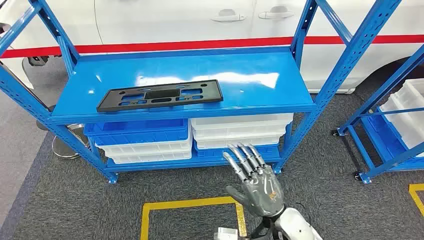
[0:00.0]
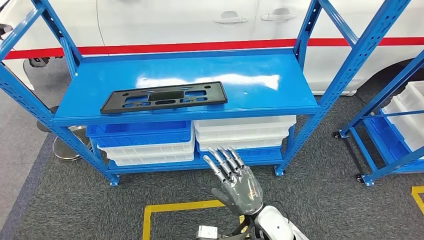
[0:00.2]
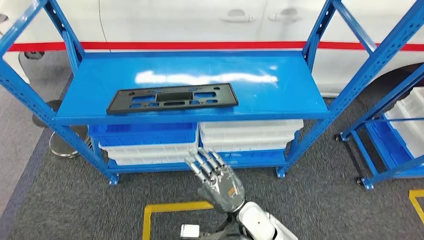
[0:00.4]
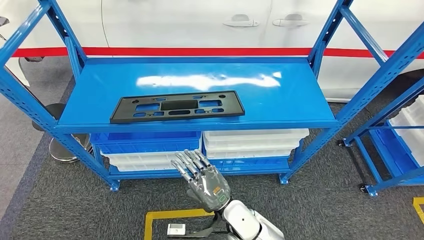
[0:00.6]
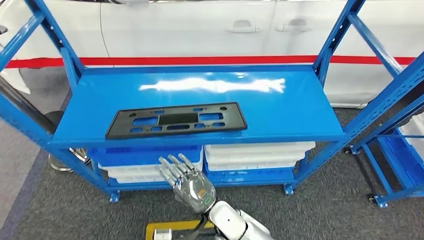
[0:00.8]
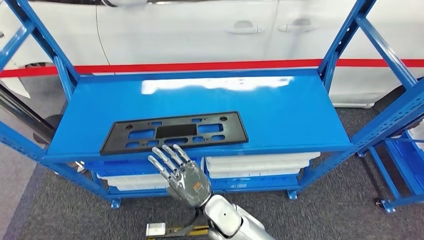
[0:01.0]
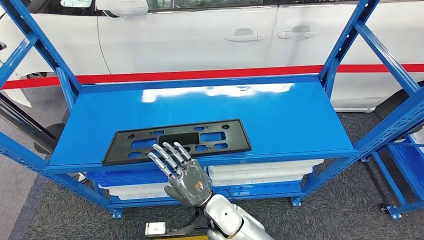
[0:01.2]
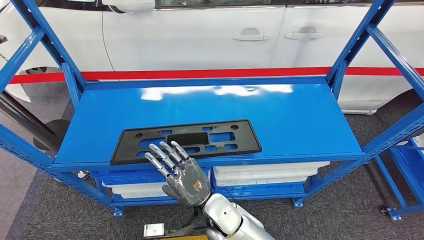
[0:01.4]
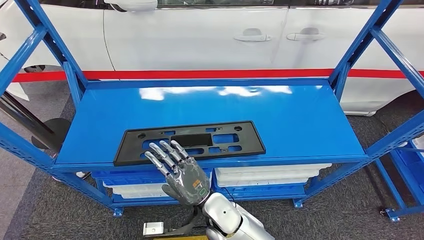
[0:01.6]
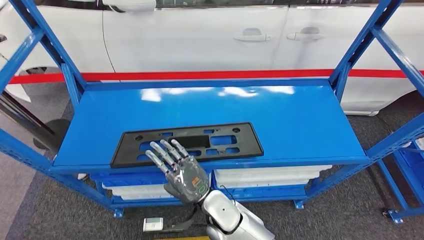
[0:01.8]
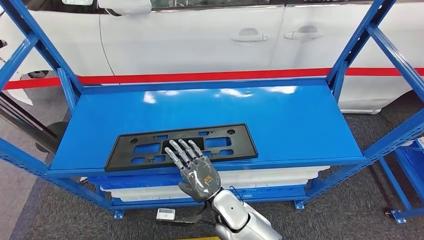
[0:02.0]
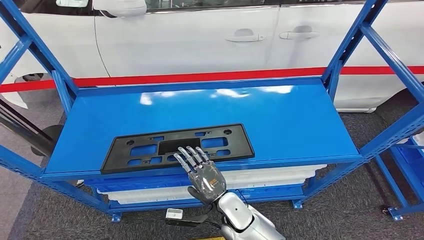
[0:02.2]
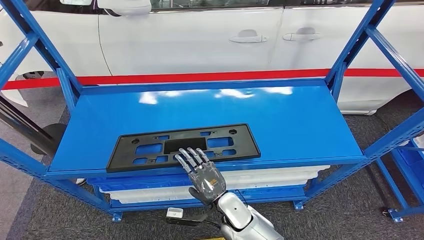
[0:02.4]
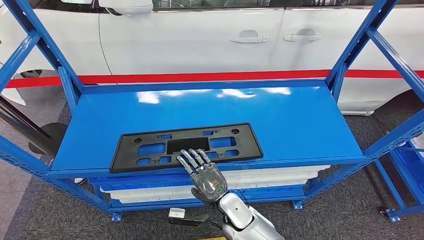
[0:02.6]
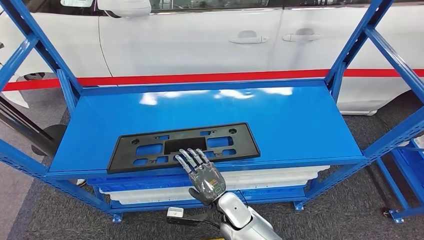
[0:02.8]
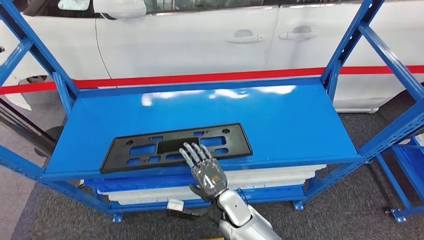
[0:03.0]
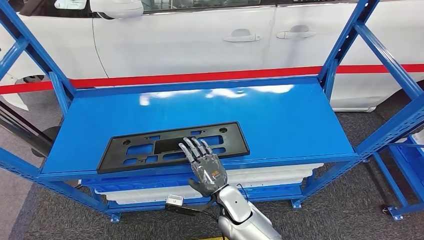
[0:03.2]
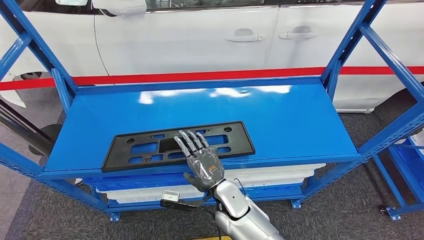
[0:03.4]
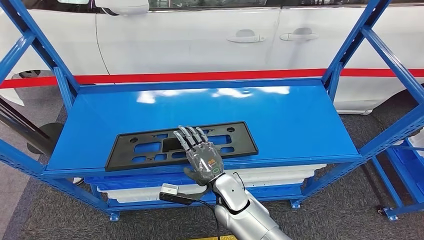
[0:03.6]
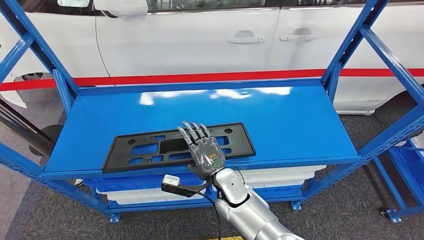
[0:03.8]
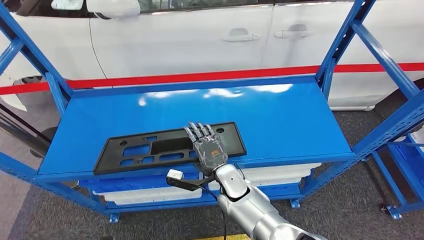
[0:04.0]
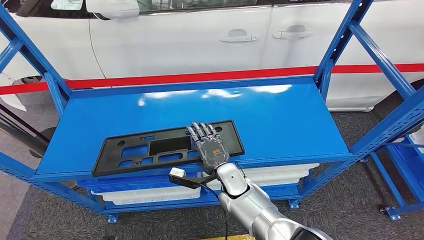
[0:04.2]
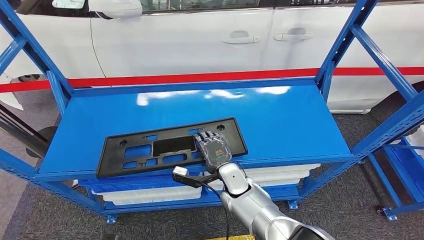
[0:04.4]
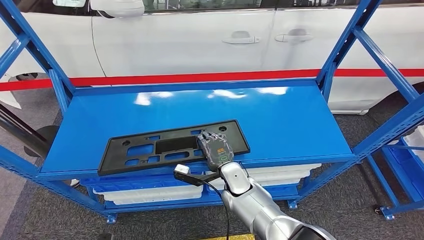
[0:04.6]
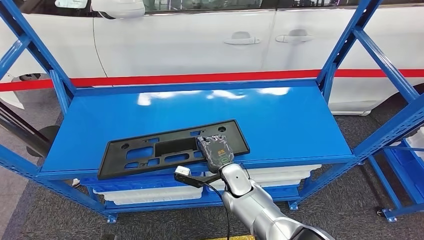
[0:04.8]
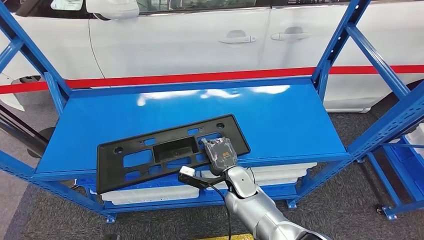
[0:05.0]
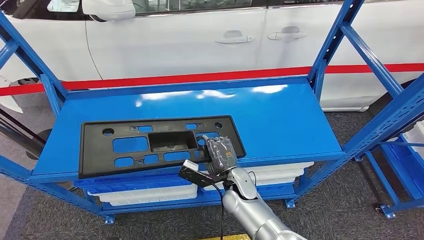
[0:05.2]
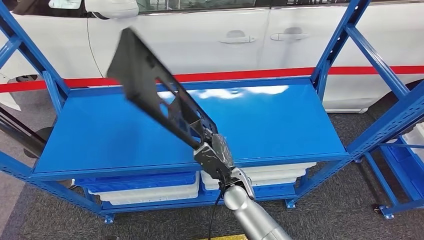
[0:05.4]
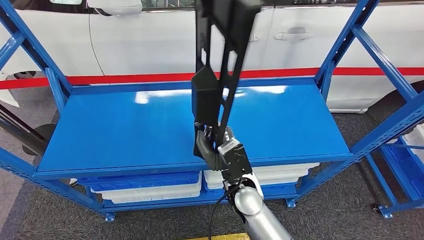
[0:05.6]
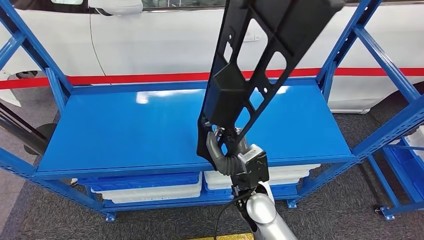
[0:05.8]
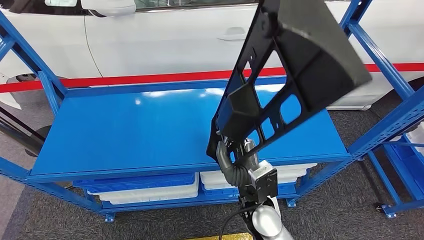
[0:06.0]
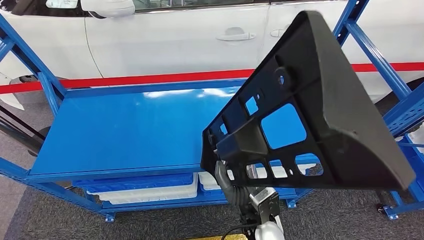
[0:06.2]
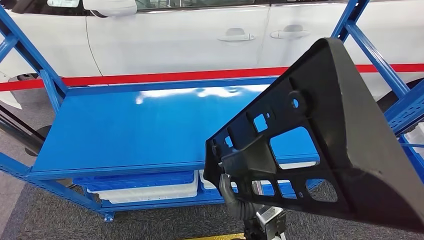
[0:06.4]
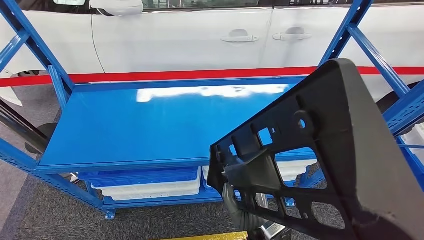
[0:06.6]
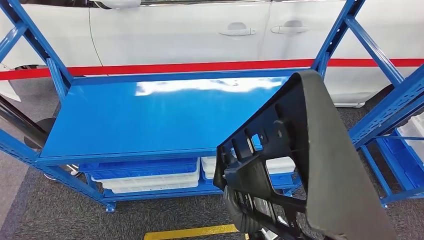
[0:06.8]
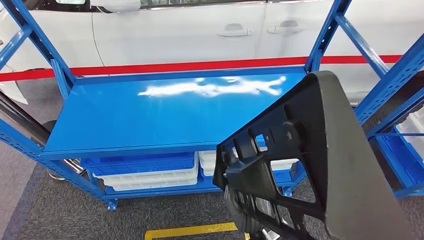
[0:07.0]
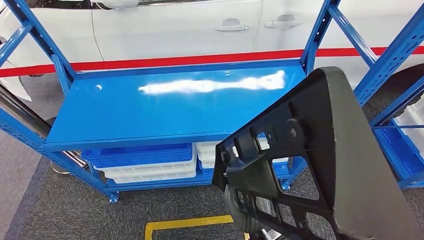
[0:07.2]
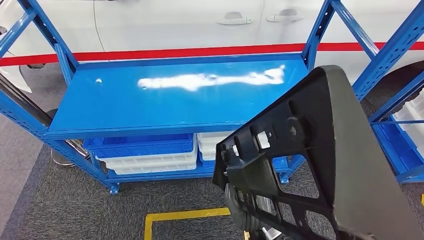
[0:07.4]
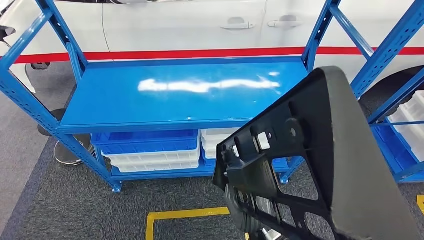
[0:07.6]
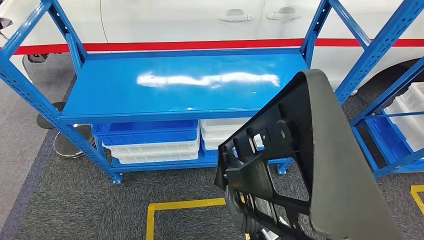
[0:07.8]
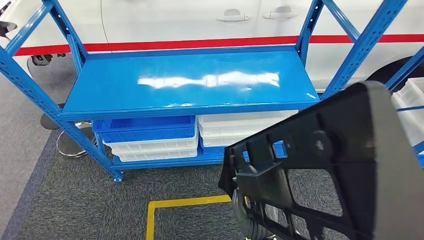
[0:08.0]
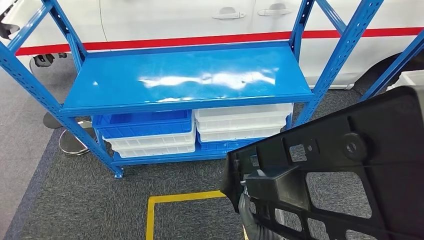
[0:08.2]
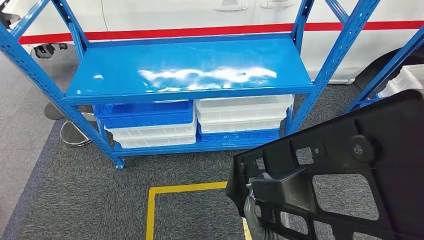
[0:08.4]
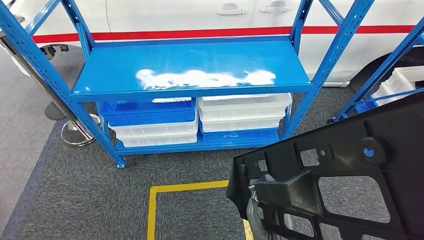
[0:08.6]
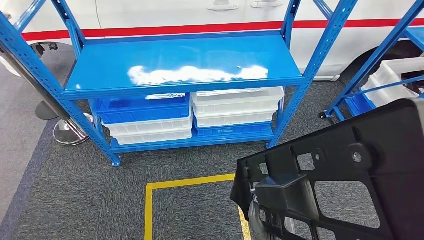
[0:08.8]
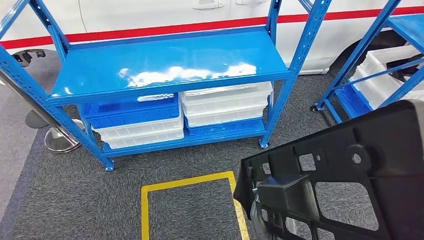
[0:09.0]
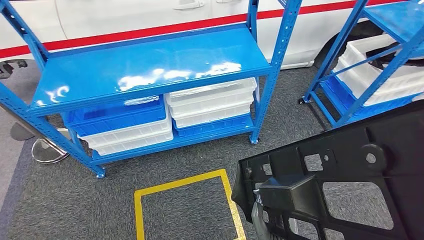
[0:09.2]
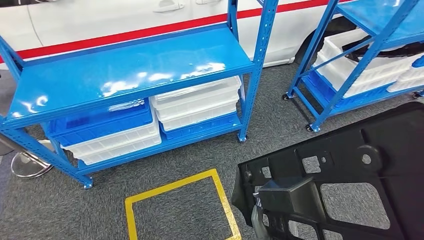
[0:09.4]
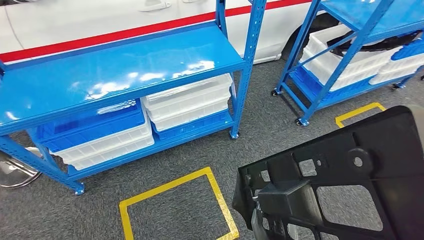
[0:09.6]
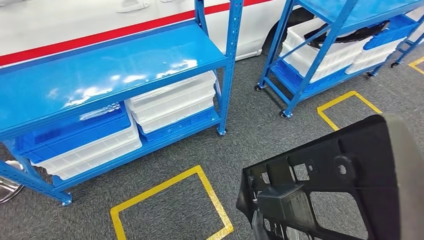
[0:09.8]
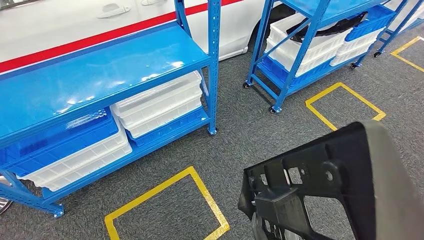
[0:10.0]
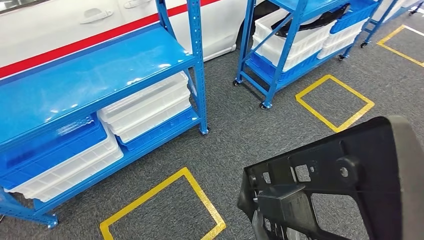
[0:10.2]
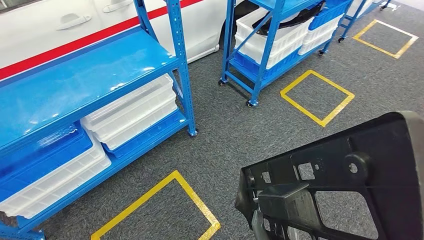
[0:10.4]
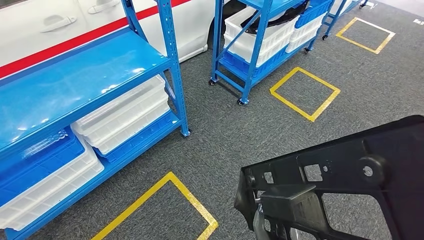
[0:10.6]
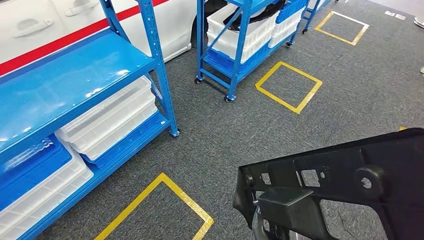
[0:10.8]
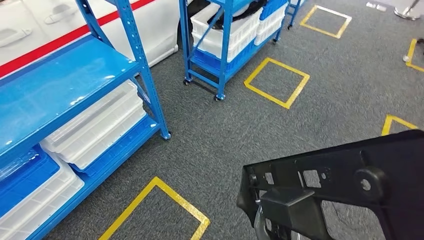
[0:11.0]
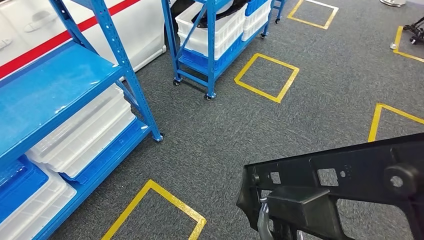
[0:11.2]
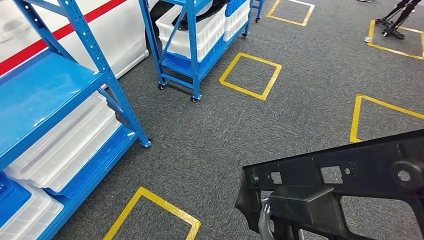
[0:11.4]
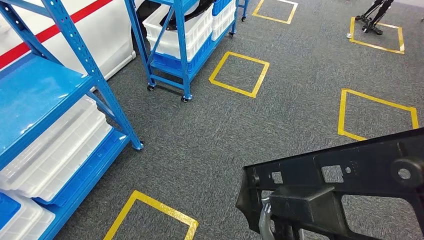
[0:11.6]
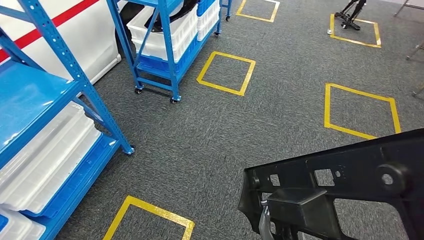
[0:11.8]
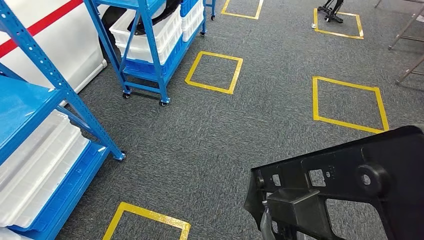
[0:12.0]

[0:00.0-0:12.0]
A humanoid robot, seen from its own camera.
Step, 0:00.0 to 0:07.8: Pick up the large material from the shelf.

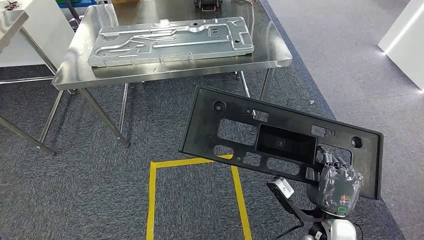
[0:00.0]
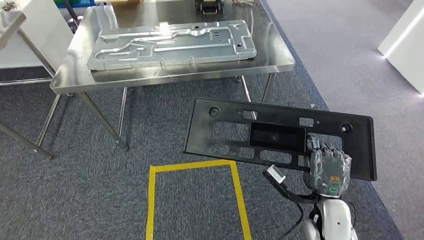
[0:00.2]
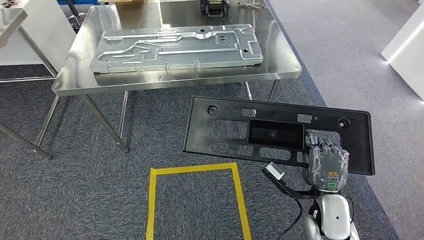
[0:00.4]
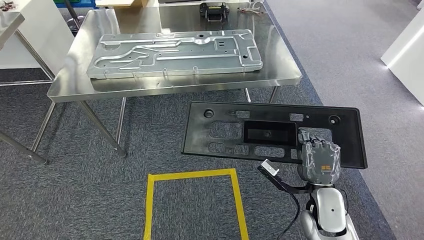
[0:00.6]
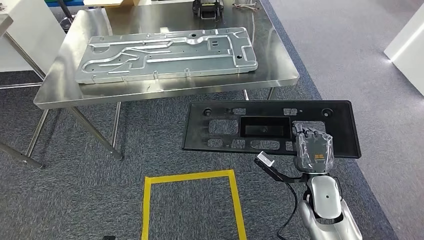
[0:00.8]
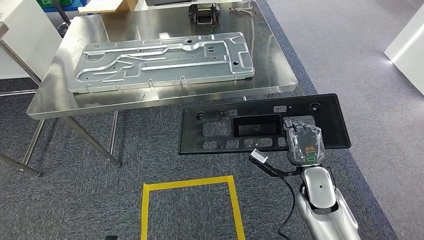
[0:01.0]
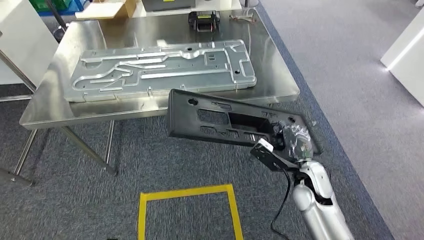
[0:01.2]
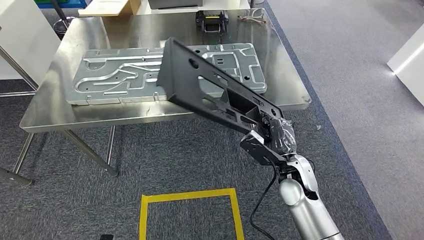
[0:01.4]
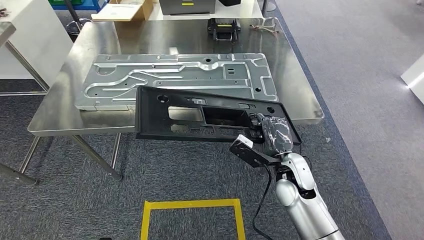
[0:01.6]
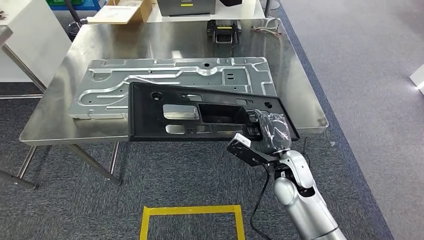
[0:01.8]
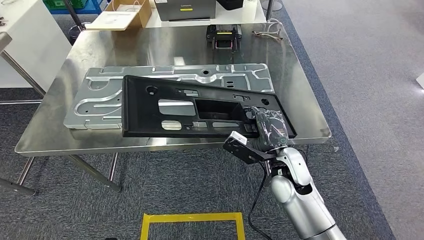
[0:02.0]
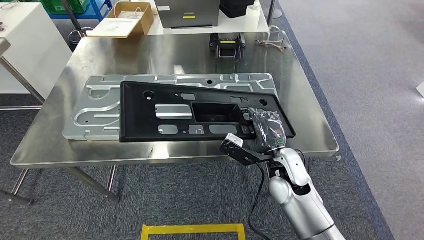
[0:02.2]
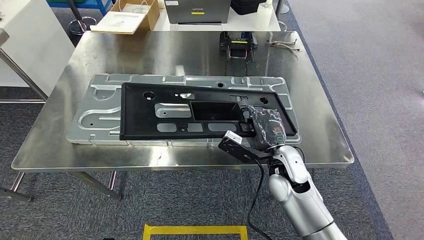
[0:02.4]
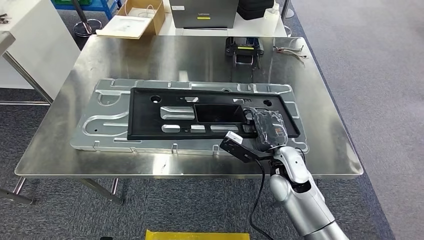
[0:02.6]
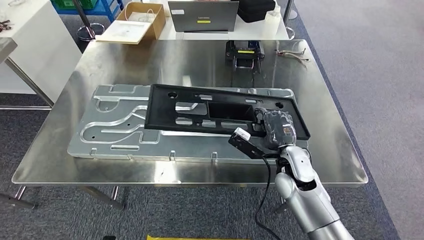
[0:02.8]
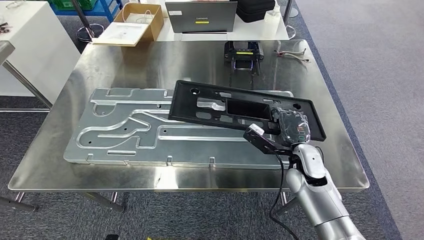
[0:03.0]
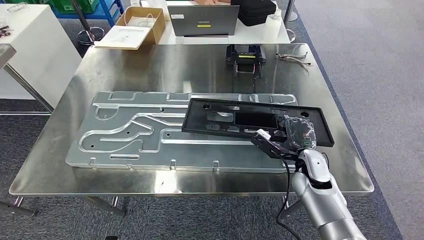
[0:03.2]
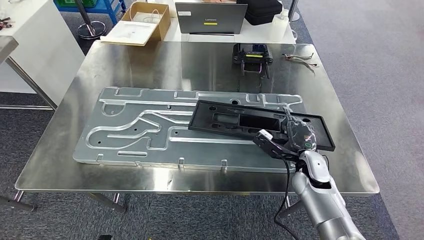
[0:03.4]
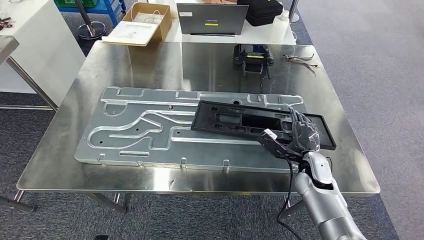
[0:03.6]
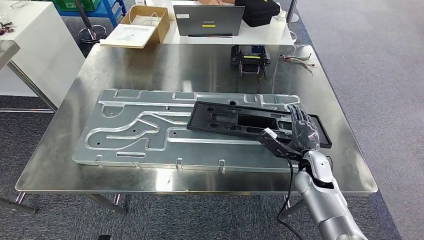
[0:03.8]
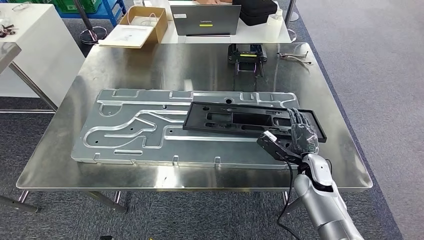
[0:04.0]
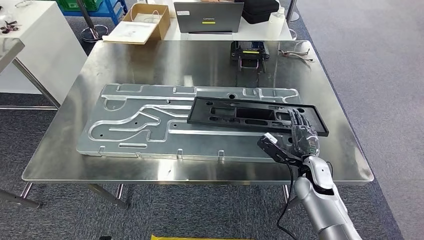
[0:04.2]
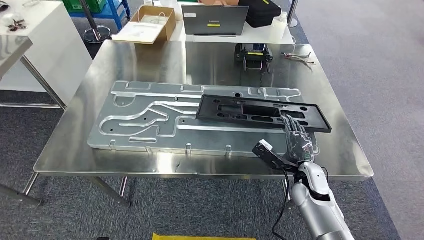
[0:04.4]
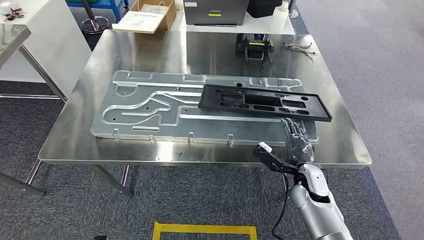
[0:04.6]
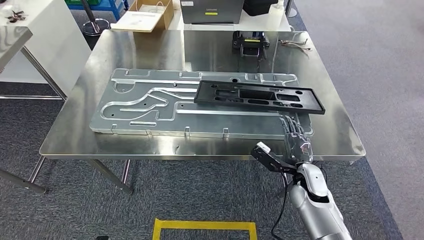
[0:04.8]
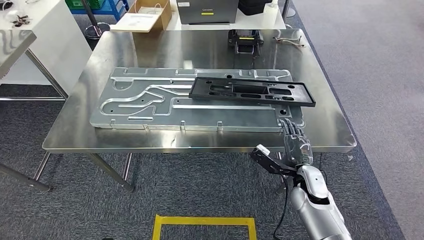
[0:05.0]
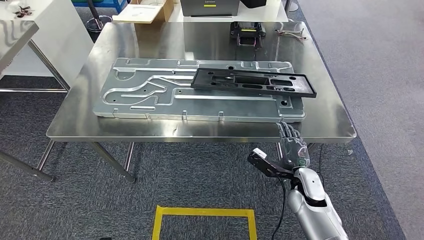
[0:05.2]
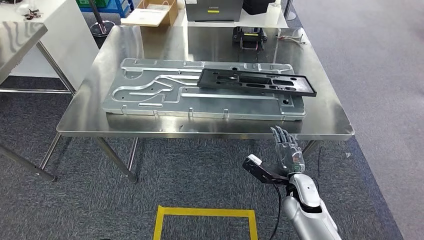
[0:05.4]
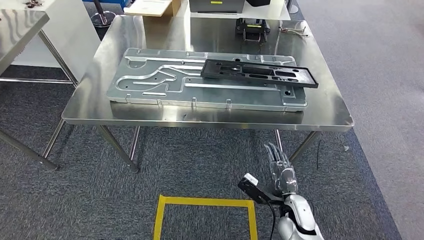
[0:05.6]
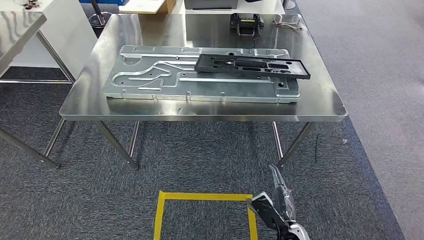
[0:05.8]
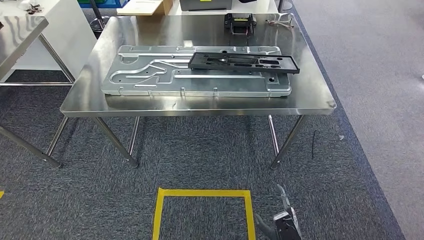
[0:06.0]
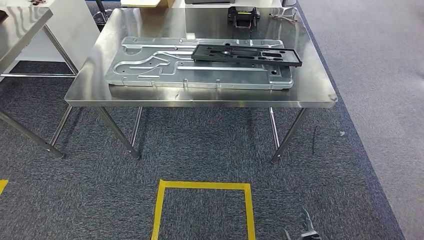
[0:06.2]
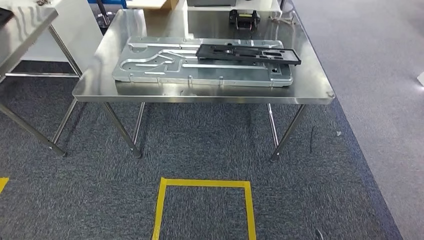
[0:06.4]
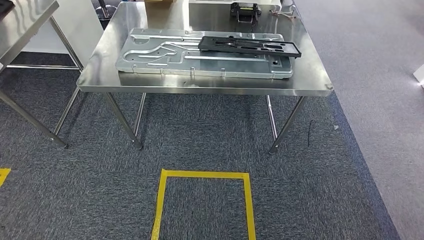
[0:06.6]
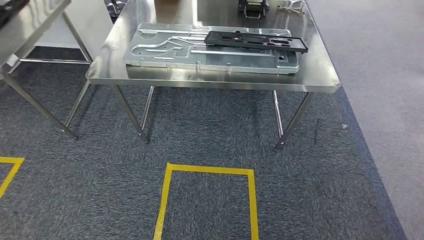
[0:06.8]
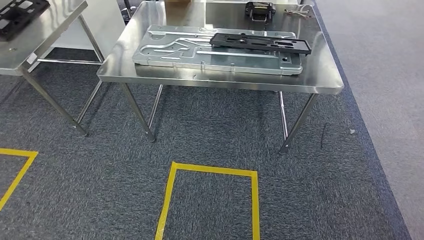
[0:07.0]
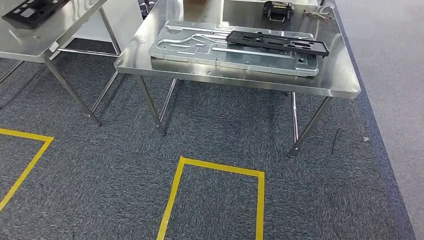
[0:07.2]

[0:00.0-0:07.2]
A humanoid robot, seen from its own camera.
Step, 0:00.8 to 0:06.6: Insert the large material into the corresponding slot on the workbench.
